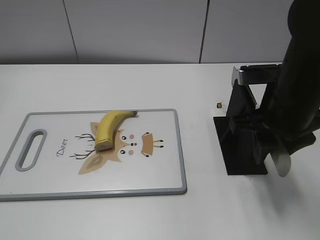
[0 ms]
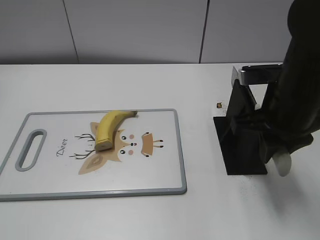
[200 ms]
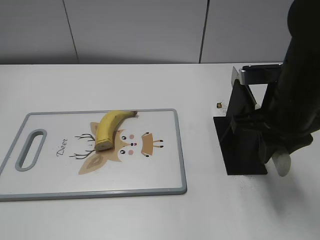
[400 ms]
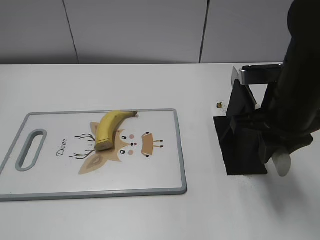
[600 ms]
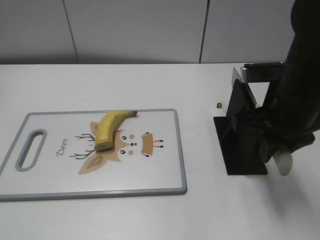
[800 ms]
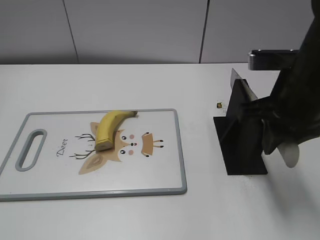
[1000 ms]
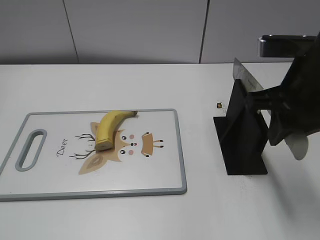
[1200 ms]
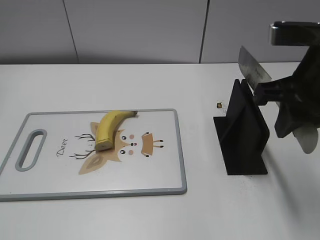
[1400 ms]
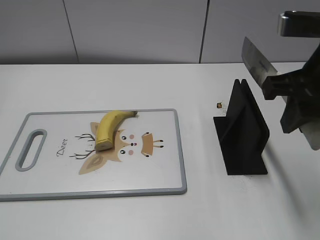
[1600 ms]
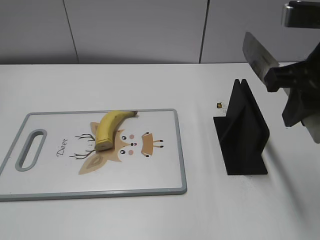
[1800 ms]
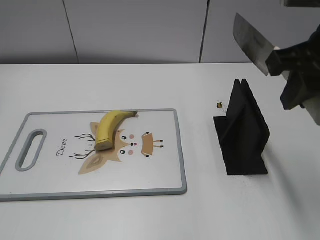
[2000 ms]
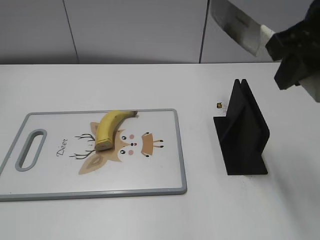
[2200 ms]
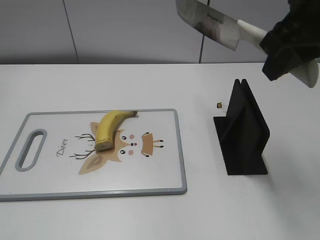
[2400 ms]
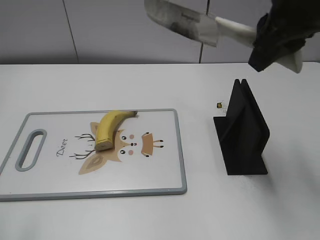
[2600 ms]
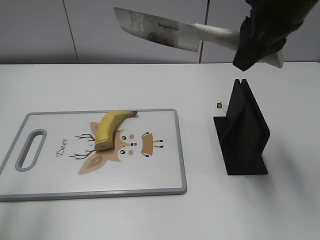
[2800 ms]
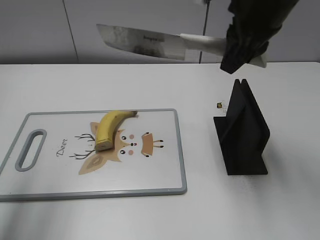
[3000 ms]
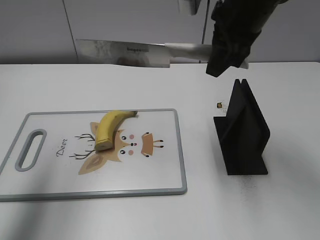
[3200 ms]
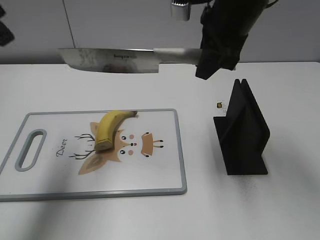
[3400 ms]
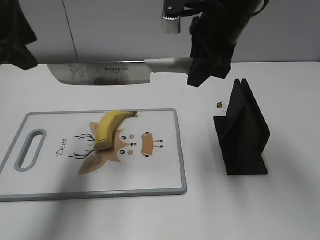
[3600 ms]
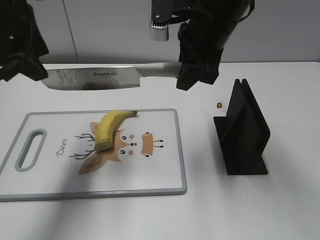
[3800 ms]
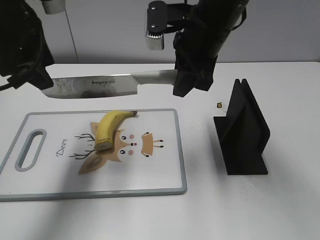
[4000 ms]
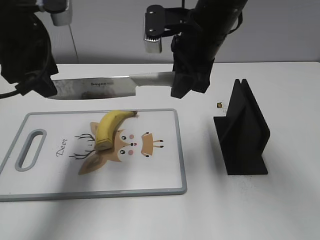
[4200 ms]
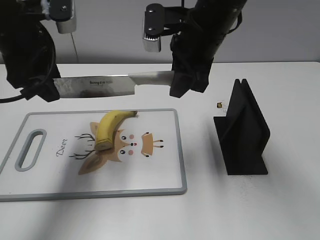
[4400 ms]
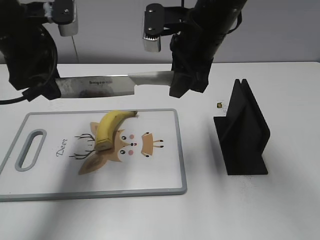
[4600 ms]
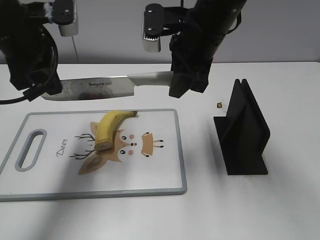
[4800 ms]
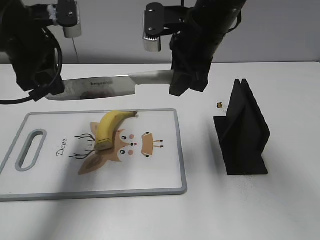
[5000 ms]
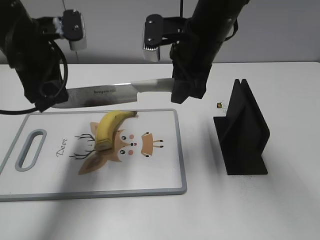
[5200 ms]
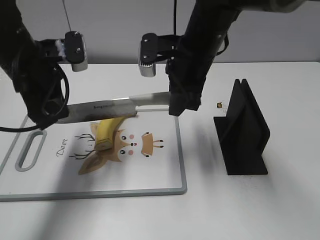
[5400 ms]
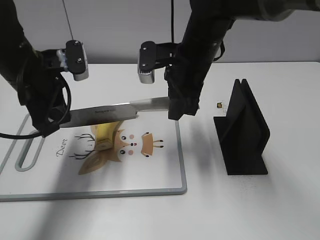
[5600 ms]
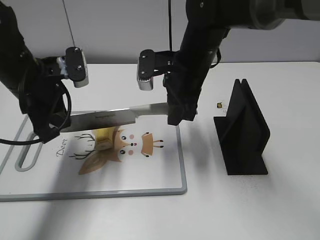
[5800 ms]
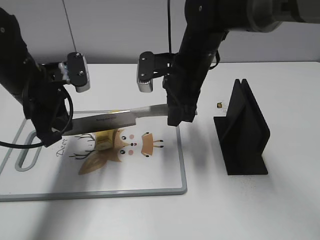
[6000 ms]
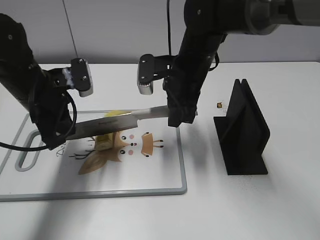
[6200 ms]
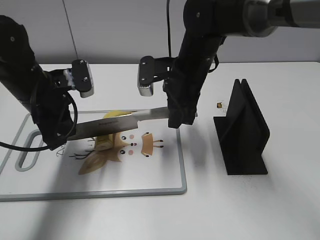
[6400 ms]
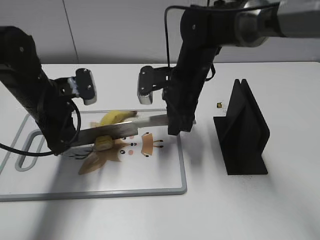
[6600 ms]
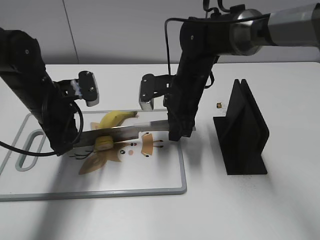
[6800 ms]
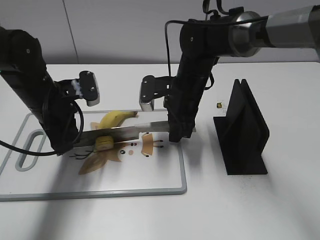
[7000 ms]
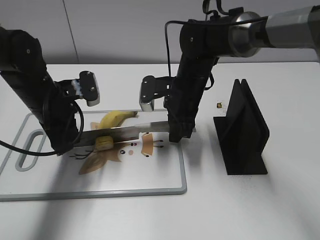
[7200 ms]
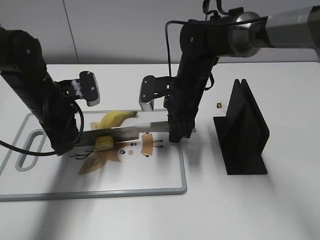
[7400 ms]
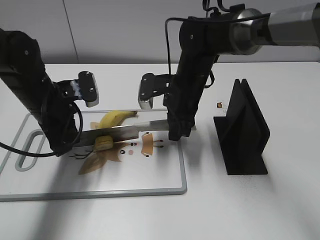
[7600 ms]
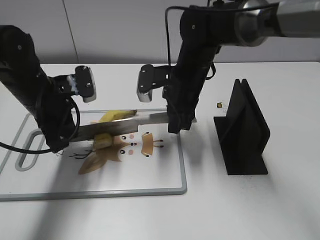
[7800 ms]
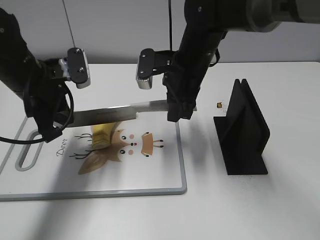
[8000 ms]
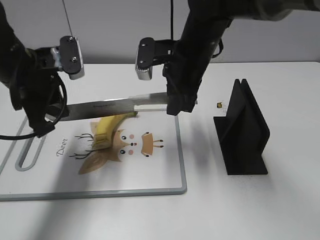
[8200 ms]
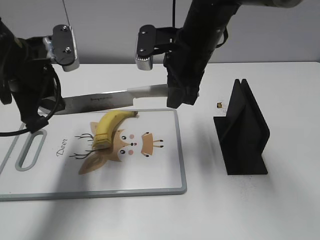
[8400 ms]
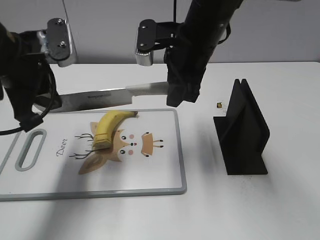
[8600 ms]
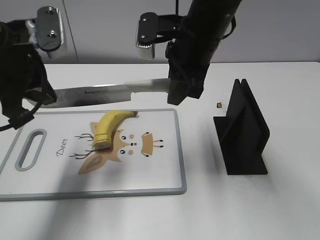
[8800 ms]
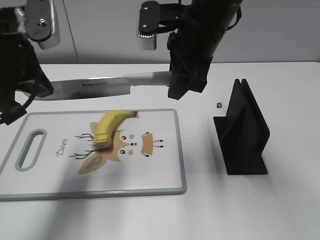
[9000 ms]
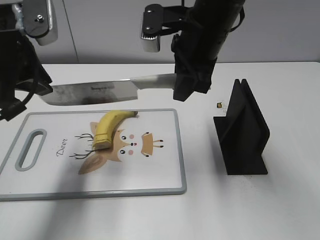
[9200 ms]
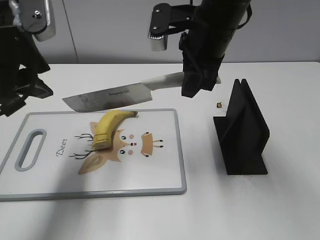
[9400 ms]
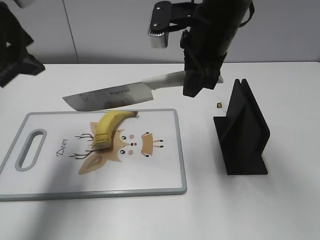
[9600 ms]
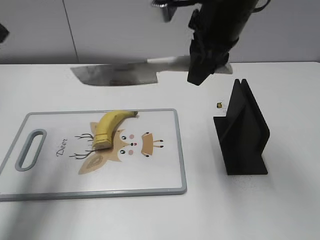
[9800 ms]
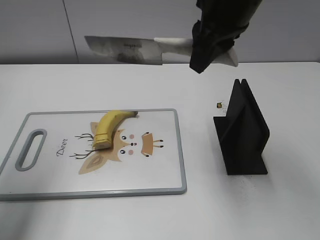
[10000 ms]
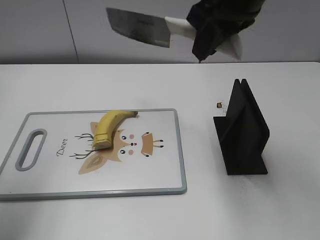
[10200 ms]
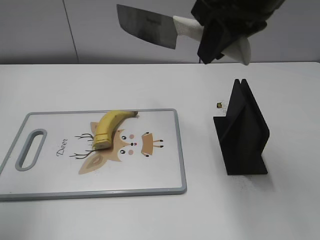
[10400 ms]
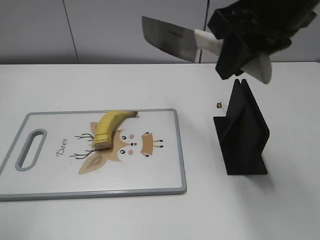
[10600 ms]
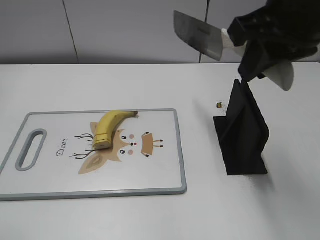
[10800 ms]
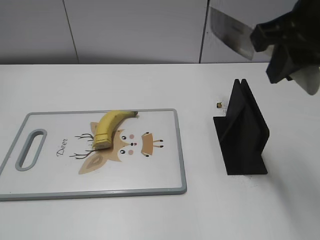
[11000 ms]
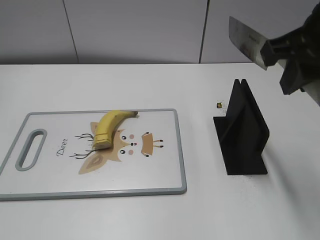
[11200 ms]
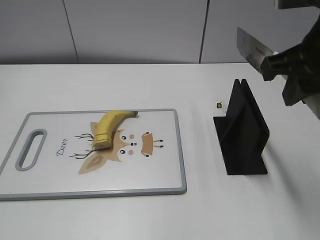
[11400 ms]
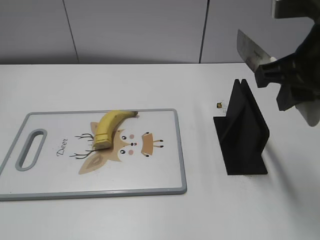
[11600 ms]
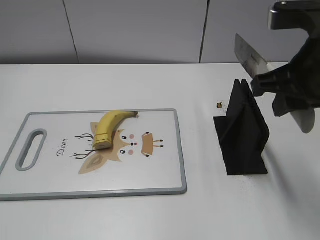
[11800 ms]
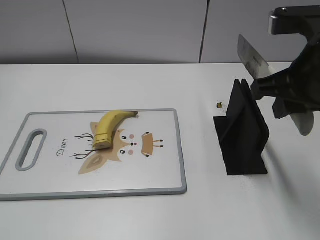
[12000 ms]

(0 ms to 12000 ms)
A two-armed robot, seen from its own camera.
Task of the whole recording: cut banana.
Step, 2000 ms - 7400 ms: Lift the knife with your right hand.
Step, 7600 ms - 10400 ms: Cut the banana with your right hand.
0 ms - 1600 ms: The right gripper goes approximately 5 cm upward.
1600 ms - 3000 ms: The right gripper moves forward and to the left, some 10 cm. The left gripper moves forward and upward, approximately 25 cm.
3000 ms - 4400 ms: The left gripper goes some 20 cm forward, downward and to the right. The right gripper travels downward and to the left by about 10 cm.
4400 ms - 6000 ms: The grippers both shift downward by some 10 cm. The left gripper closes up.
6000 ms - 7600 ms: The right gripper shifts about 5 cm downward.
7600 ms - 9000 ms: The right gripper is displaced upward by roughly 15 cm. The left gripper heads upward and backward, covering roughly 15 cm.
9000 ms - 10400 ms: The right gripper travels upward and backward by roughly 10 cm. The left gripper shifts some 15 cm to the left, backward and upward, and opens its fingers.
10400 ms - 12000 ms: The left gripper travels backward and downward by roughly 20 cm; the right gripper heads downward, to the right and backward, covering some 10 cm.

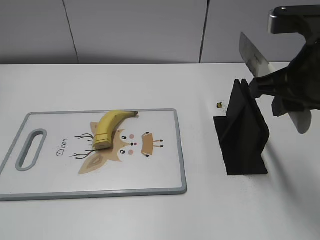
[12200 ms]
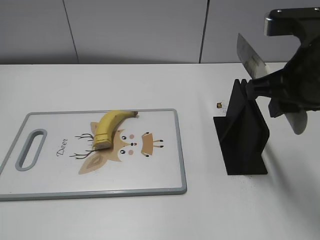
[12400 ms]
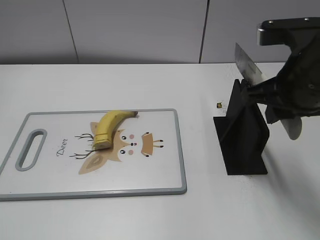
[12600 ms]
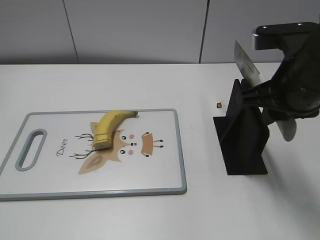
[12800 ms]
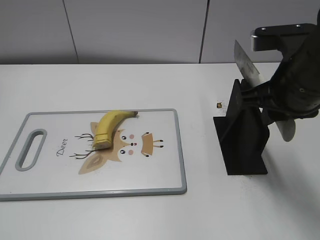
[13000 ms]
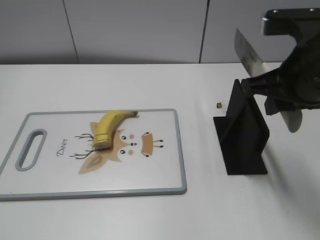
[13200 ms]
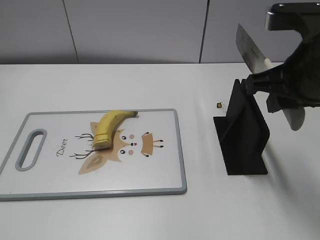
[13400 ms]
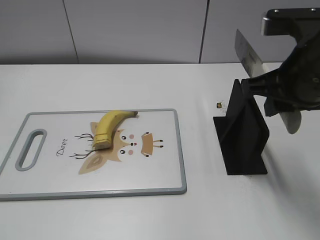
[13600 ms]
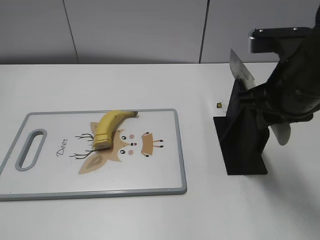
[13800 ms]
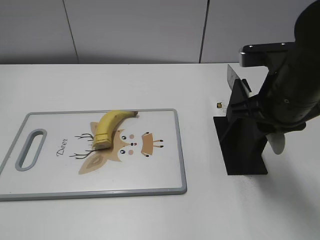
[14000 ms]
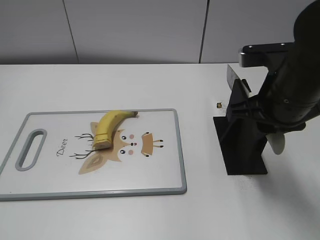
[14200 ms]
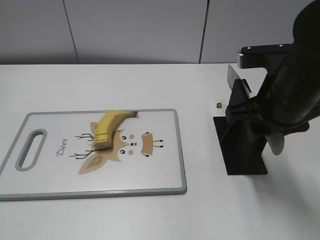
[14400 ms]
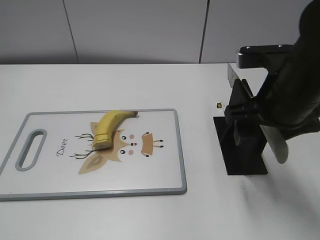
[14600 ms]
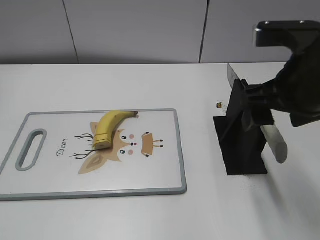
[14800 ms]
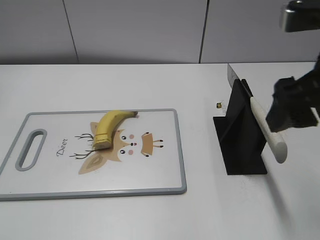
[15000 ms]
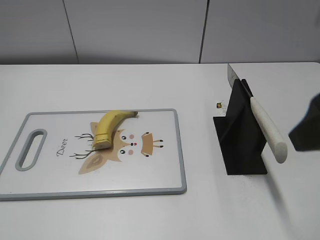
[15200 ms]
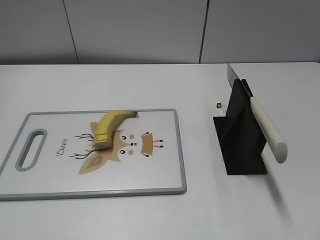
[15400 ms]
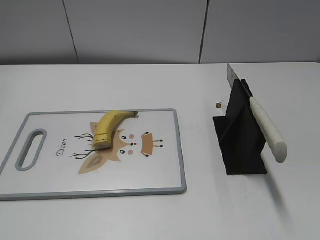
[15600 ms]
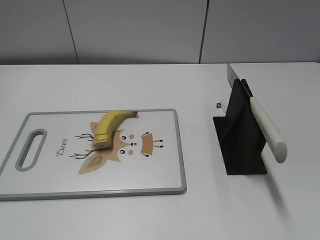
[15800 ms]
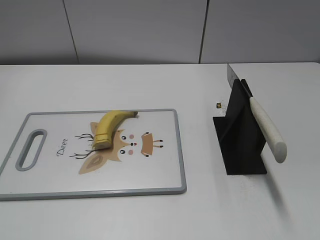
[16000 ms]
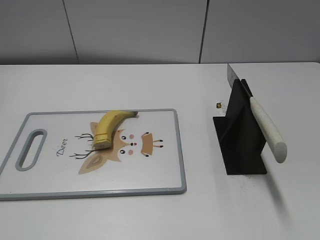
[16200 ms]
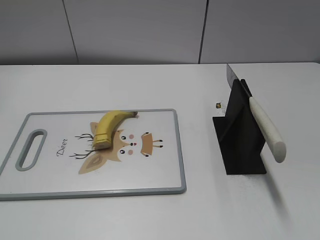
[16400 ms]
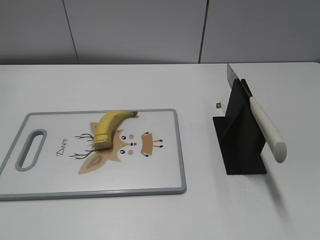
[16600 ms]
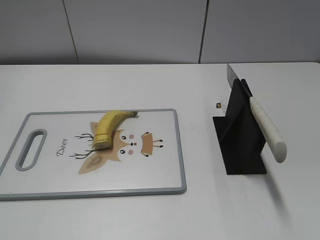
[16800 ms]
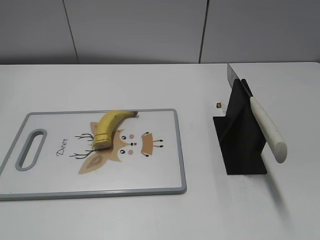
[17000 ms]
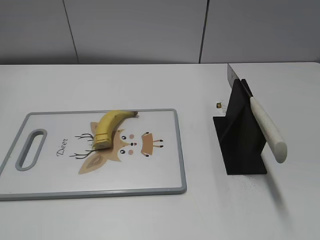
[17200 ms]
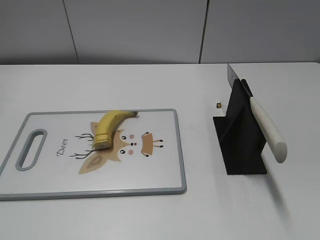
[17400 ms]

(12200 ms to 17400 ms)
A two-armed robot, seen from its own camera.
Task of the whole recording: cut banana.
Step, 13000 ms - 17400 ms: Place the knife on the storage rack with your right hand.
12200 ms - 14000 ms: The right gripper ends up about 5 cm from where it was.
14000 ms - 15600 ms: The right gripper heads backward and to the right, covering approximately 20 cm, and opens its fingers.

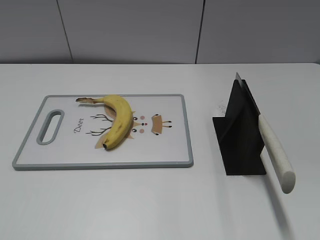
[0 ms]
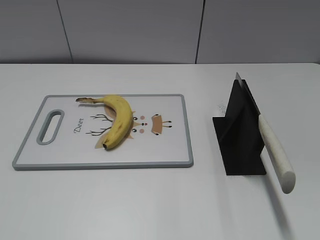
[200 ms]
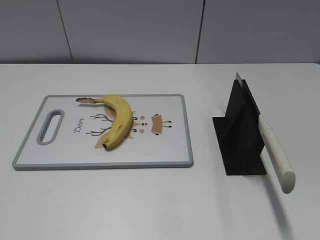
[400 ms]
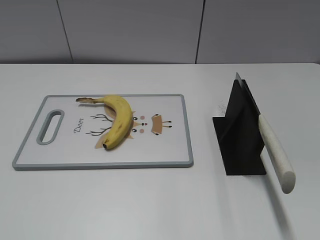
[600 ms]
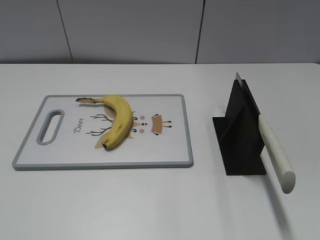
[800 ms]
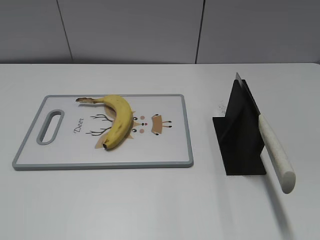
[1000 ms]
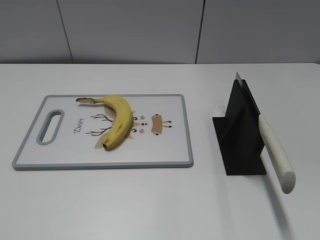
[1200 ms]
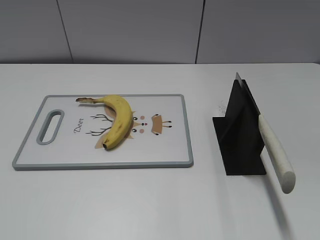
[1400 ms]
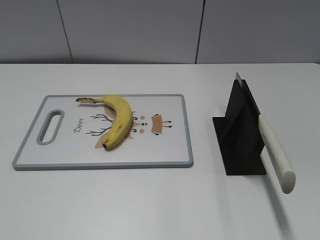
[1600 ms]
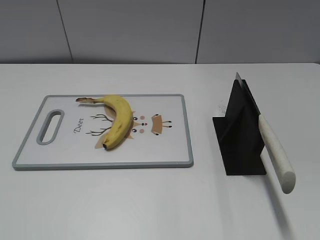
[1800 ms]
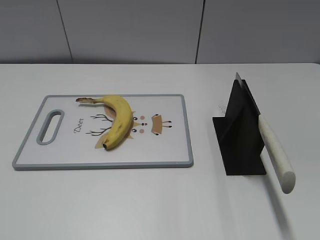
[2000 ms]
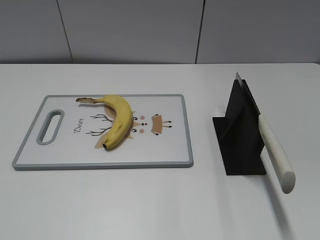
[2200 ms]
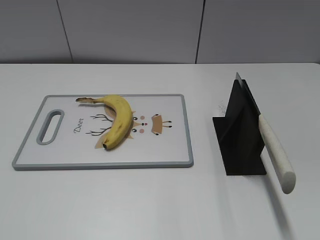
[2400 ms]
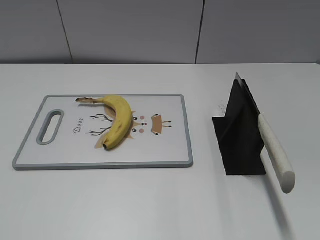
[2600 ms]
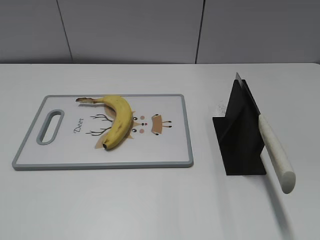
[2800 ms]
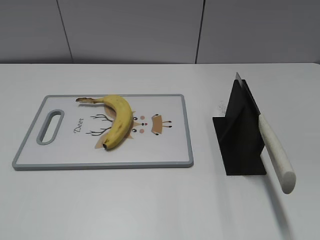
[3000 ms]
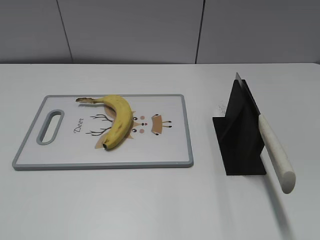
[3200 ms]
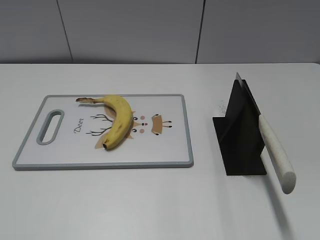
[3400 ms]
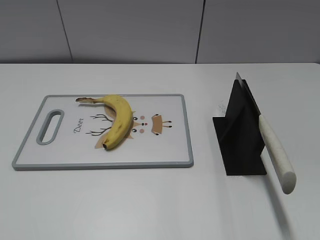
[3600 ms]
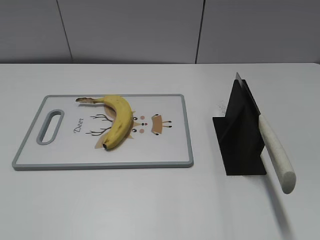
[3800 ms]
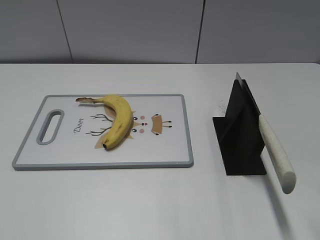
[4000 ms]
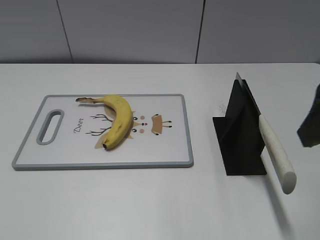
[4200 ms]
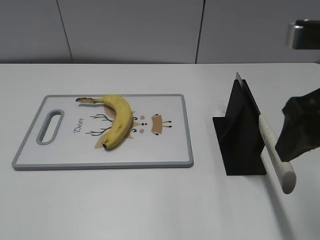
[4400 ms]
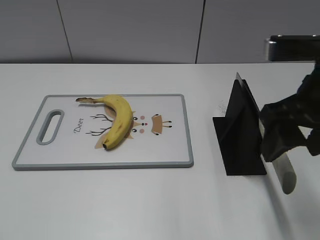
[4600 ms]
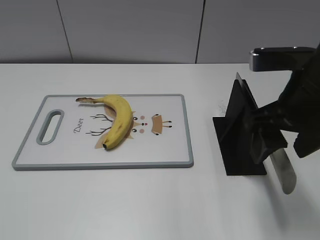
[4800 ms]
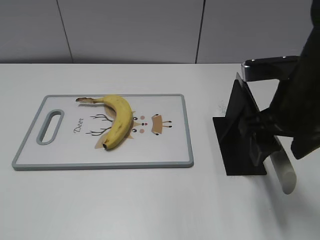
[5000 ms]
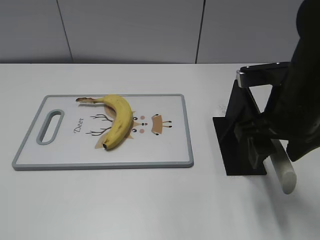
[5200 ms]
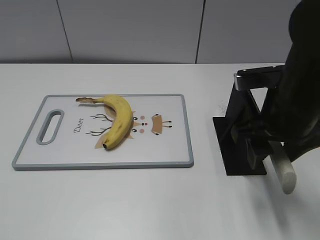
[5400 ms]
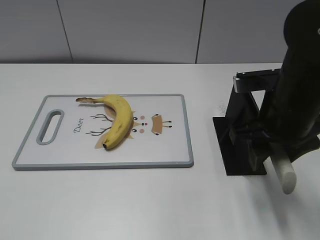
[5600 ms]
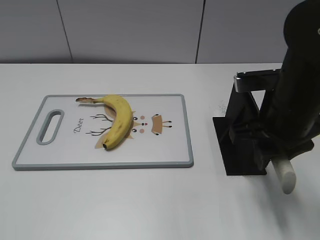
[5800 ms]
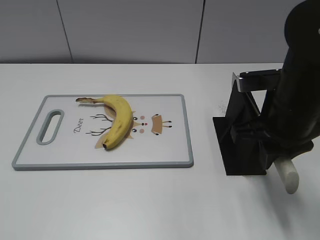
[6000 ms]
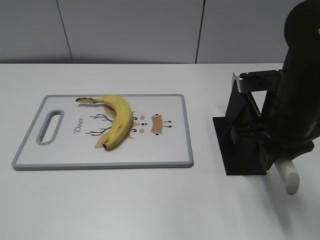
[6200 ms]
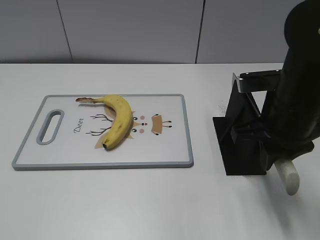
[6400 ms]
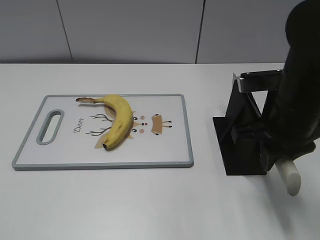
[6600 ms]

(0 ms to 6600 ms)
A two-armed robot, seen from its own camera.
Task of the whole recording: cut banana.
3200 ms - 5000 ms: The right gripper goes about 25 cm forward, to the left and downward.
5000 ms - 6600 ms: The right gripper closes.
